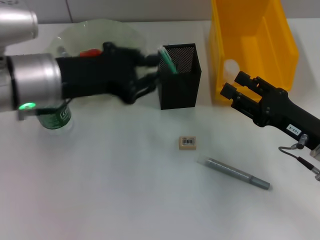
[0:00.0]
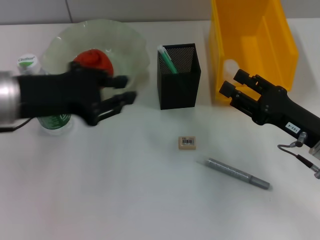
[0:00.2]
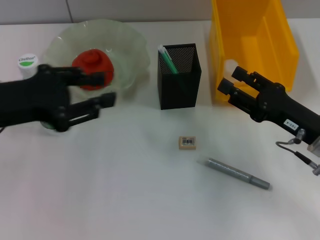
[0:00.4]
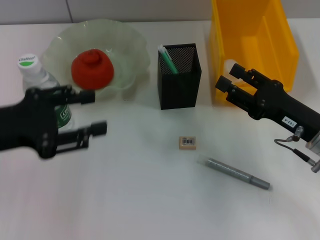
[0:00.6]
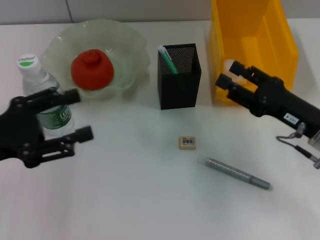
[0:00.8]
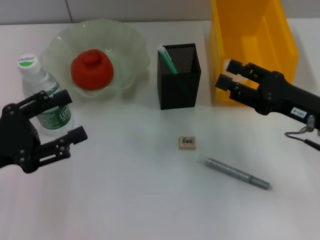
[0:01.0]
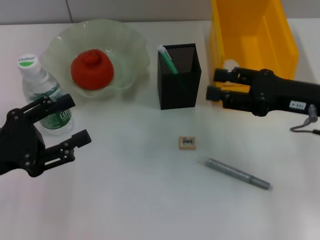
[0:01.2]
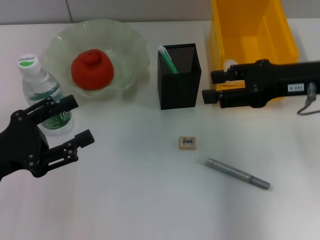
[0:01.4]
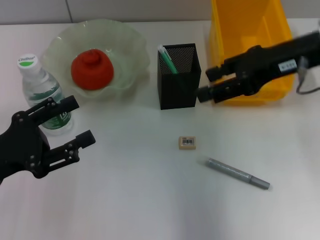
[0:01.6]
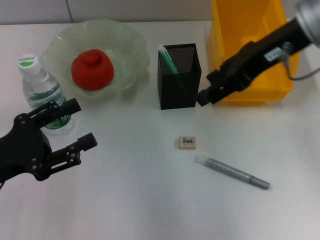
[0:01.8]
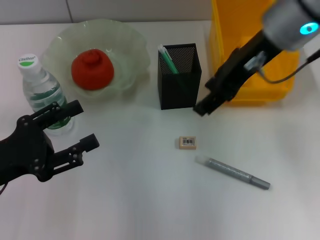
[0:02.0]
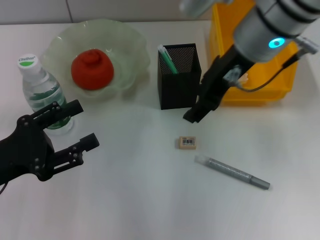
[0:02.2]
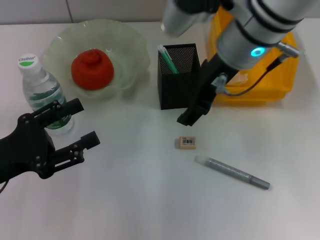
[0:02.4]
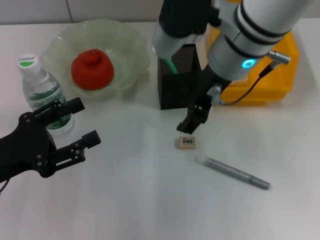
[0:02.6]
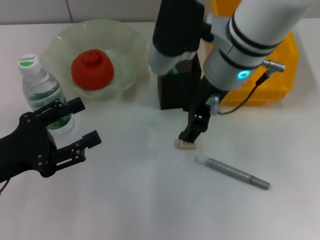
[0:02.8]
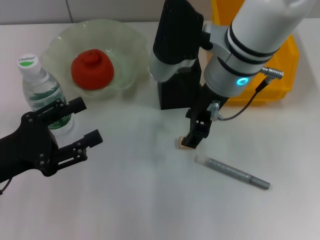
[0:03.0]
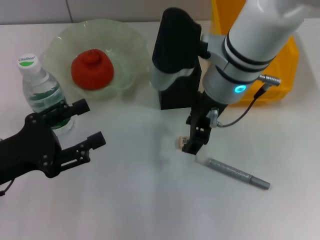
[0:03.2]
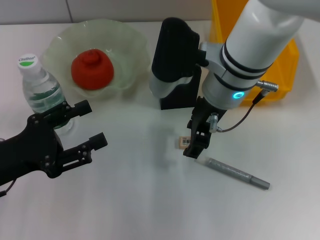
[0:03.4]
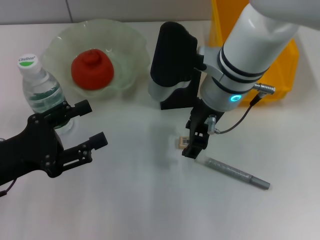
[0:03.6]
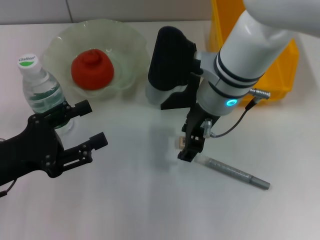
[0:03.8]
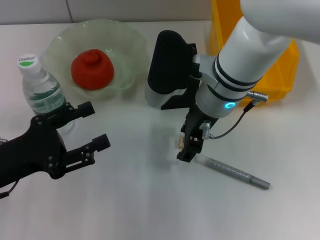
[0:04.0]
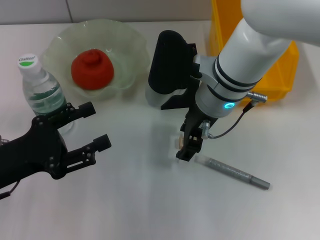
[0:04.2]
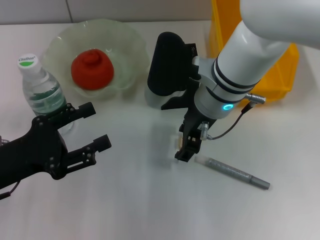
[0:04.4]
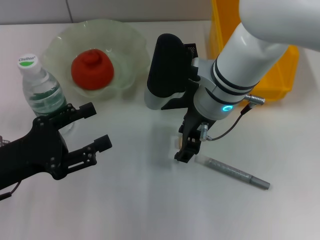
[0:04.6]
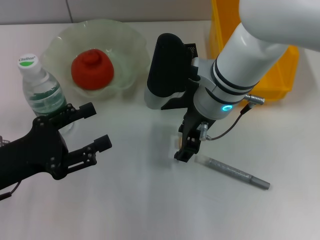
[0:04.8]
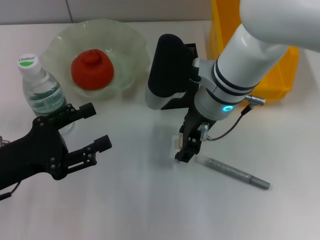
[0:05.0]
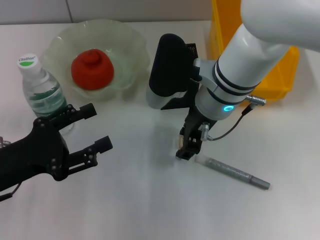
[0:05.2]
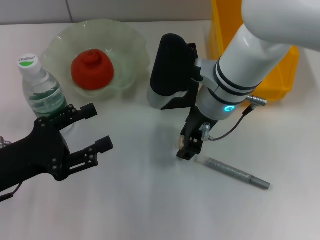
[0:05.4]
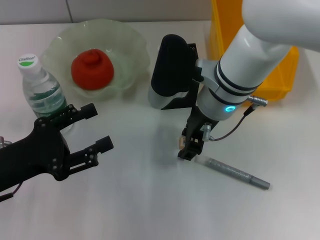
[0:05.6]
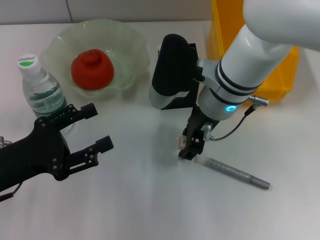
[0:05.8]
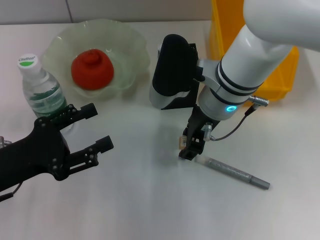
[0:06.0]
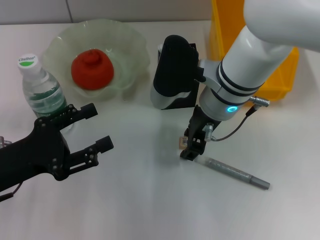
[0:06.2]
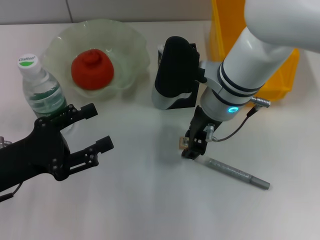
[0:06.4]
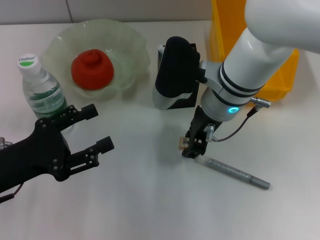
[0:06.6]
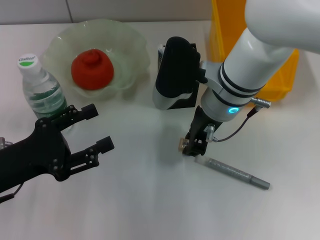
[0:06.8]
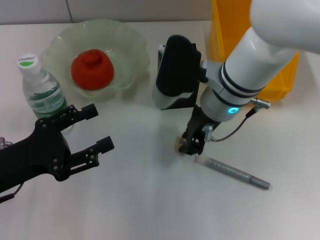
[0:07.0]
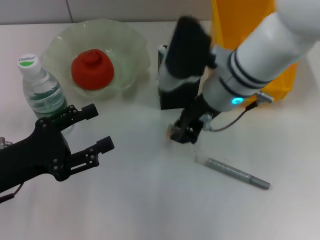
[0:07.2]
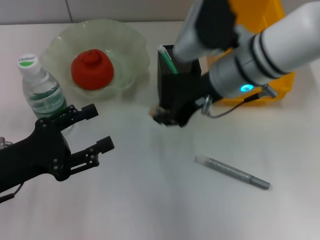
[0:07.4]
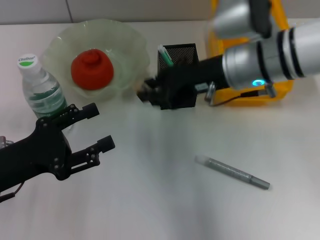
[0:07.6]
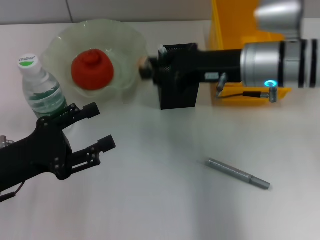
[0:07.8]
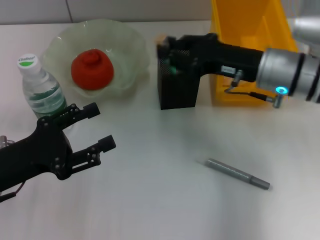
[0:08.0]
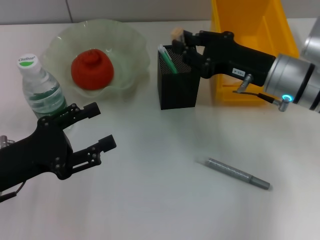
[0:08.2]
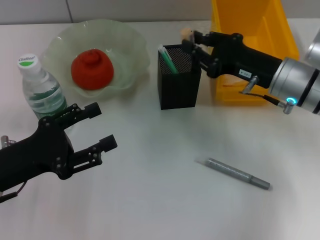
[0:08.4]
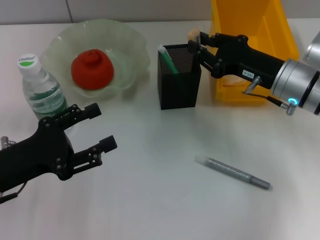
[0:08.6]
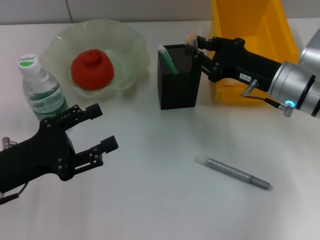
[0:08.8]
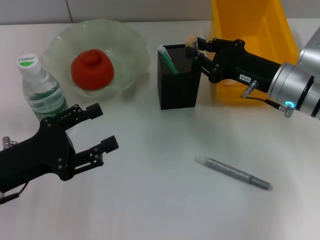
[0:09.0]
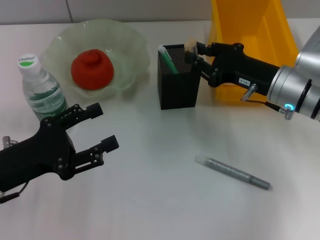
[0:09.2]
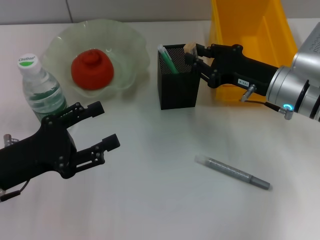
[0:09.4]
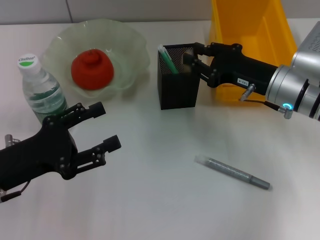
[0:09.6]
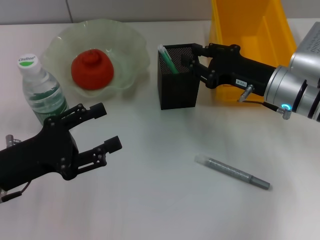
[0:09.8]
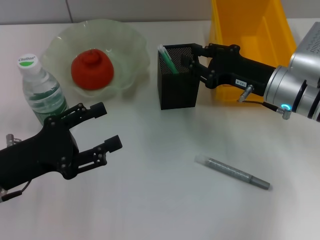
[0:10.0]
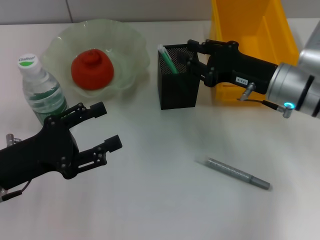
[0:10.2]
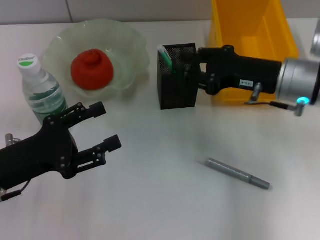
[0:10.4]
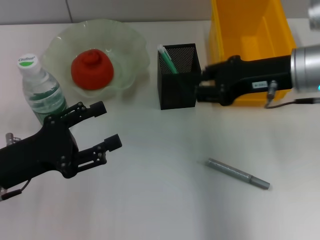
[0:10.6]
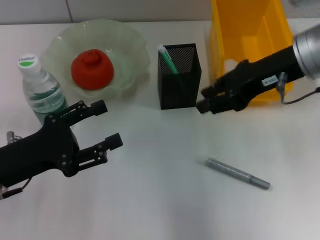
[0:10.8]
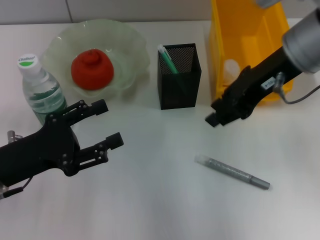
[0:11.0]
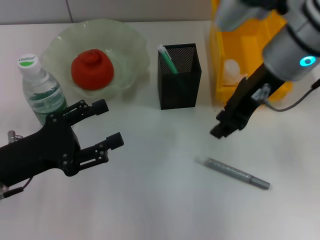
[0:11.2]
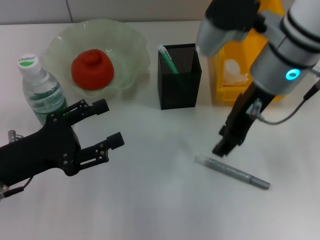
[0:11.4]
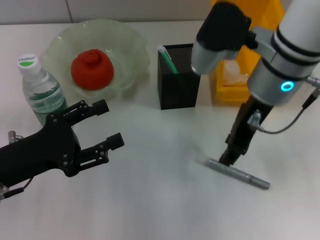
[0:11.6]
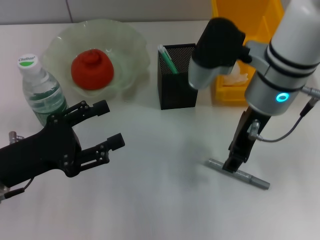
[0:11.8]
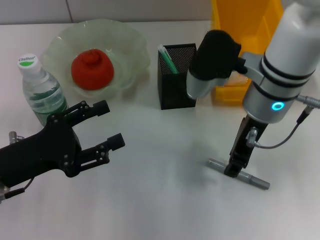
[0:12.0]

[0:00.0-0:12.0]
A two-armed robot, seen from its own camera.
Step, 0:00.0 to 0:07.0: Grab the eraser with the right hand.
Step, 0:07.2 to 0:10.4: Put the eraser into the pen holder with the right hand.
0:00.0 to 0:01.6: The right gripper travels upward and forward by some 20 cm. Meanwhile the left gripper heads to the left, downward and backward, covering approximately 15 cm, and opens.
0:01.6 to 0:03.0: The right gripper heads to the left, covering roughly 15 cm.
0:03.0 to 0:04.4: The grippers stay close to where they were, moving slightly.
0:04.4 to 0:06.0: Both grippers stay about where they are.
0:06.0 to 0:07.6: The right gripper is displaced to the right by some 5 cm, and closes.
0:07.6 to 0:09.0: The right gripper shifts roughly 10 cm downward and to the right.
0:09.0 to 0:10.4: The grippers make only small movements.
0:10.4 to 0:12.0: The right gripper moves to the left, about 10 cm, and moves roughly 10 cm upward and comes back.

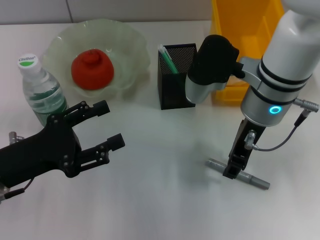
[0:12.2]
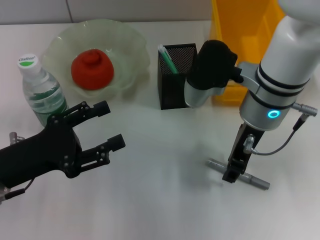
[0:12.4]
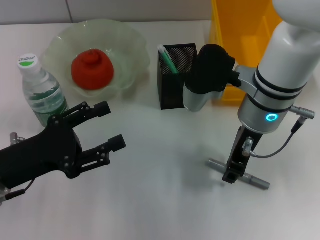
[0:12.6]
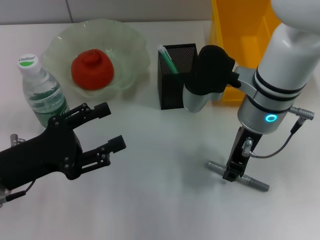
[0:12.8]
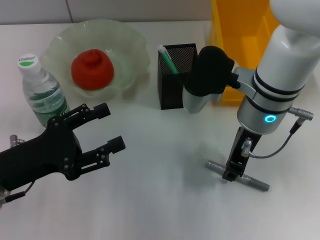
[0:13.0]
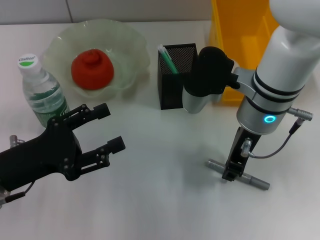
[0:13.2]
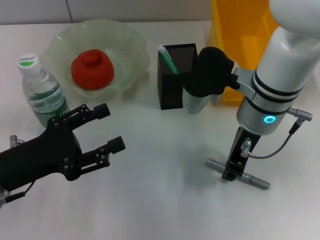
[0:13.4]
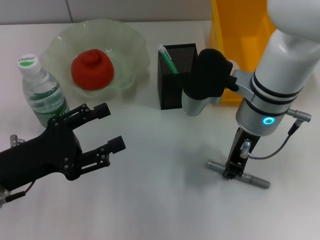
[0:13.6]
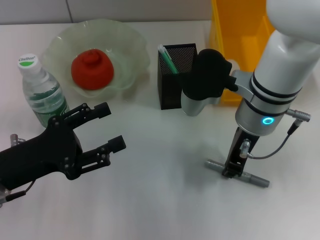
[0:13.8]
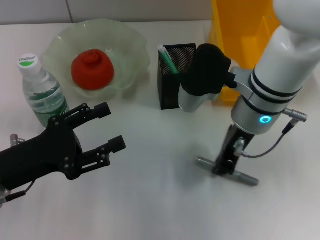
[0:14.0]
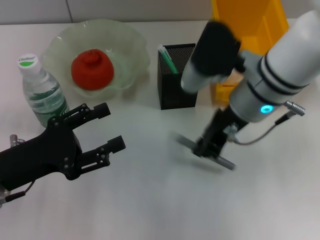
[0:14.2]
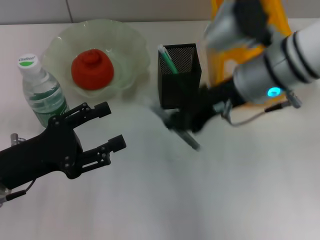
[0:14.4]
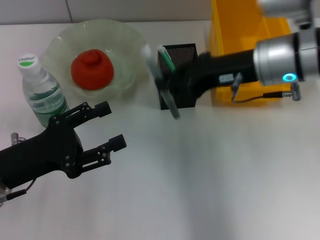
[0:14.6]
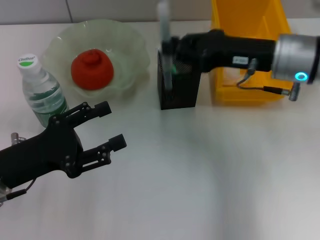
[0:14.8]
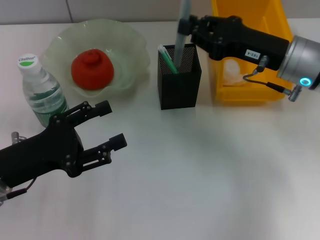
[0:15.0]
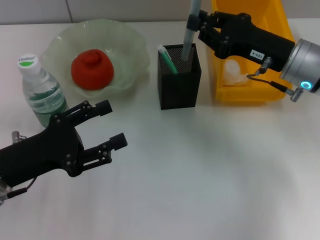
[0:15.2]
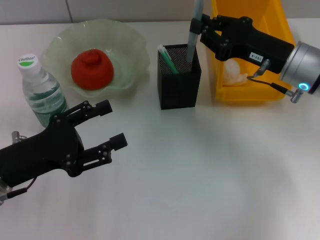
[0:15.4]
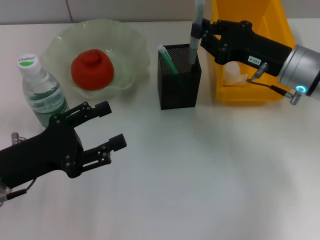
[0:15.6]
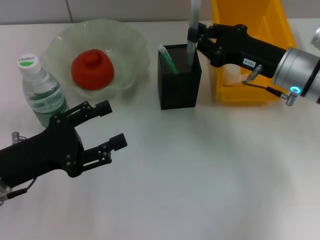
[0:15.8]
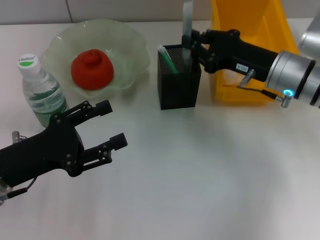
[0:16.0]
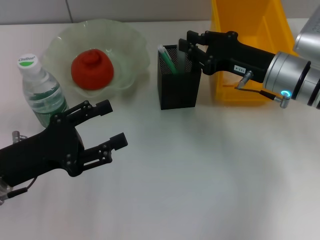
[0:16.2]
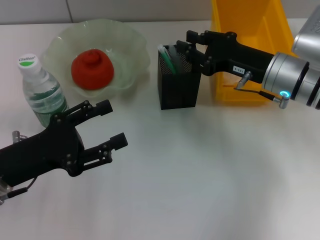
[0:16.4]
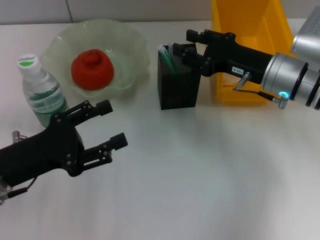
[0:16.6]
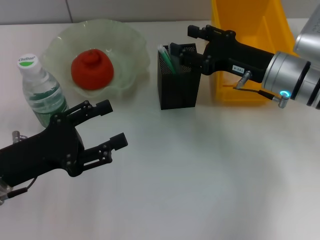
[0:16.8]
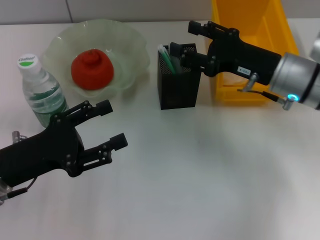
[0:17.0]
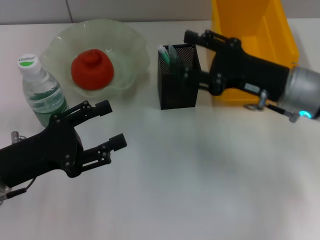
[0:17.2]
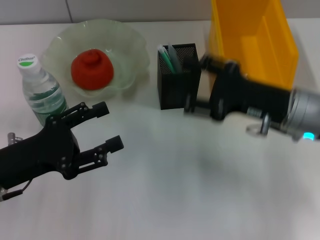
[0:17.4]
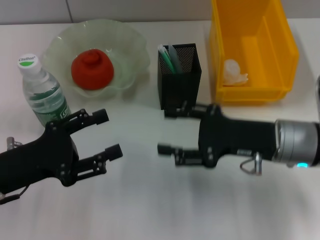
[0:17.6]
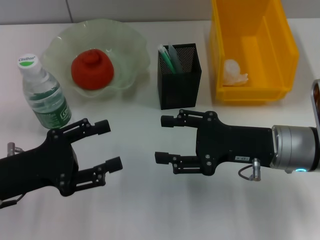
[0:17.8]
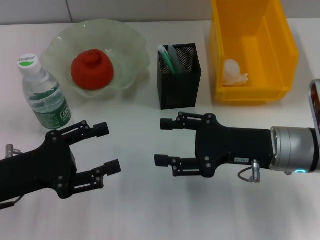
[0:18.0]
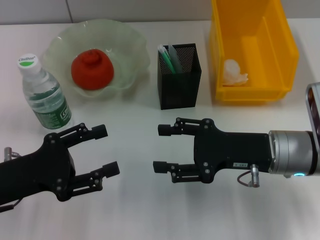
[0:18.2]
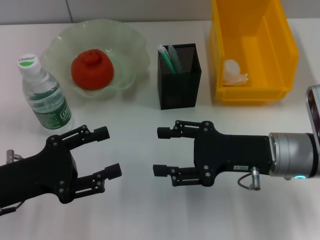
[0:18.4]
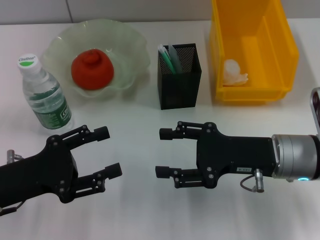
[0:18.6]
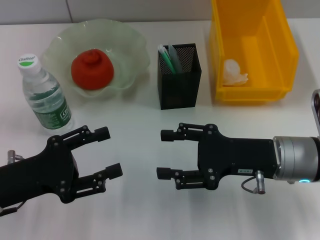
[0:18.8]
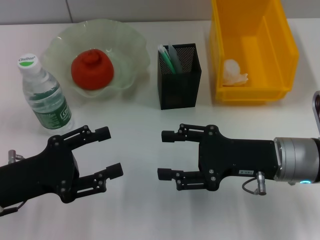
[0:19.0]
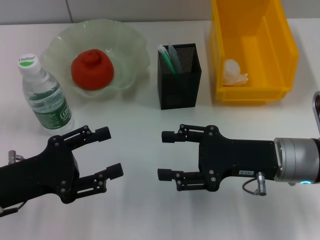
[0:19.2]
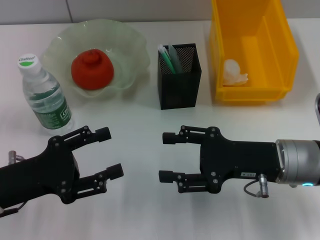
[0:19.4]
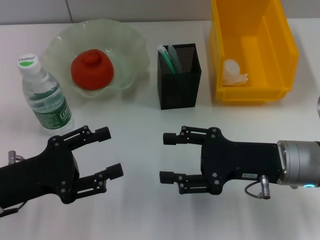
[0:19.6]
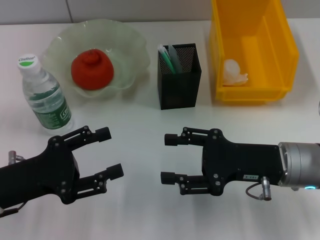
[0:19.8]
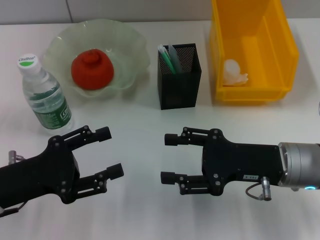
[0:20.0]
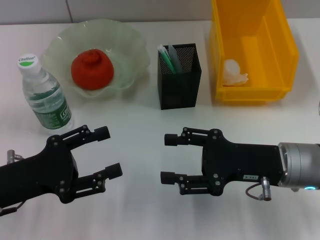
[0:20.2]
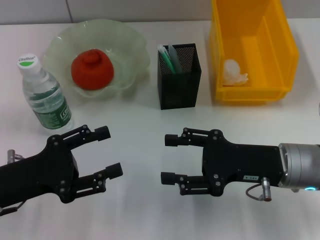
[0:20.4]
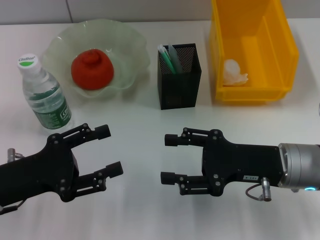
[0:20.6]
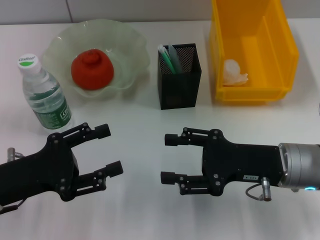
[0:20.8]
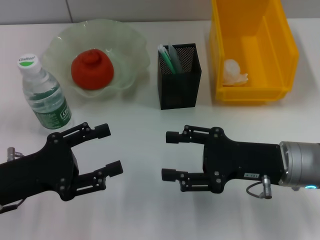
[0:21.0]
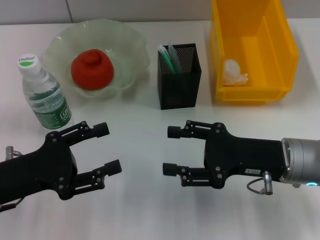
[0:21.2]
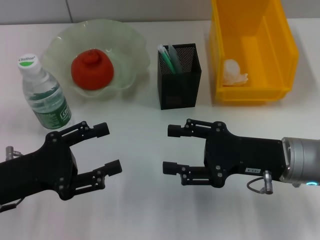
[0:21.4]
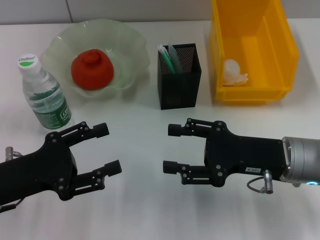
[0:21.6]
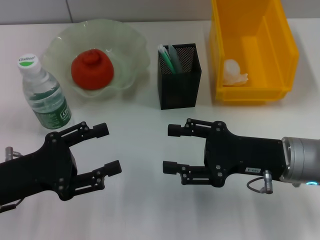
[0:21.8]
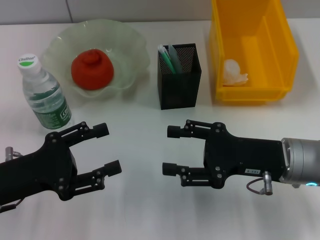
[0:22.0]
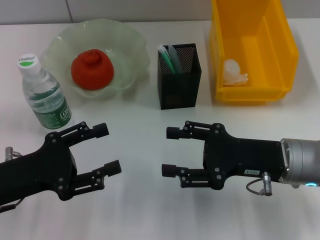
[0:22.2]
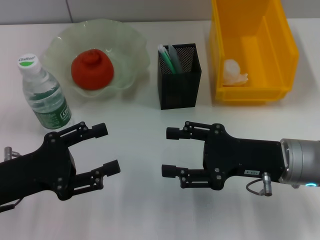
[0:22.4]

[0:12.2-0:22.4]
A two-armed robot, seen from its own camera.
Step, 0:14.0 to 0:17.0: Place the gray glue into the pen holder with the right hand.
0:12.2 to 0:13.6: The right gripper closes its fingers.
0:13.6 to 0:15.2: The right gripper is displaced to the right by approximately 10 cm.
0:15.2 to 0:16.6: The grippers make only small movements.
0:16.6 to 0:18.0: The right gripper shifts roughly 10 cm backward, and opens up.
0:18.0 to 0:19.4: The grippers make only small movements.
0:19.4 to 0:22.4: Both grippers stay about where they are.
